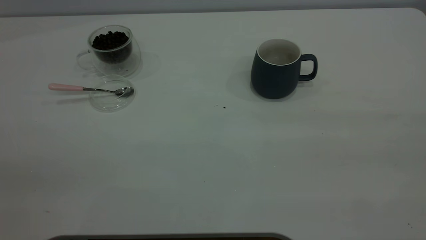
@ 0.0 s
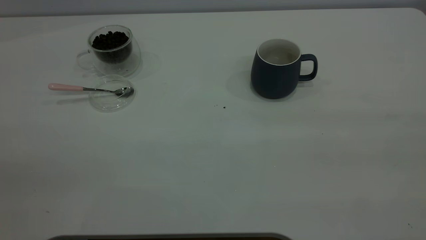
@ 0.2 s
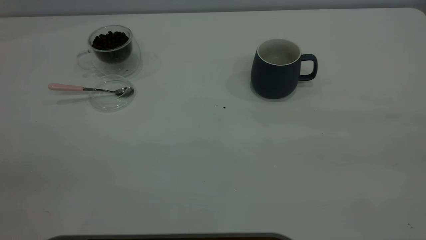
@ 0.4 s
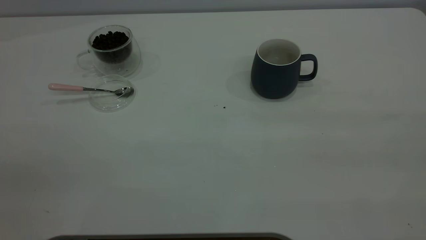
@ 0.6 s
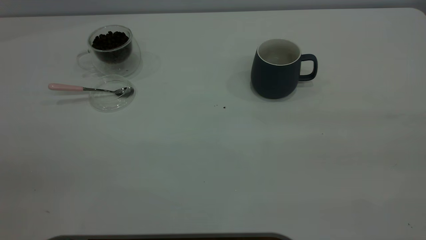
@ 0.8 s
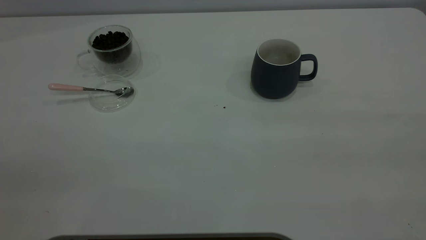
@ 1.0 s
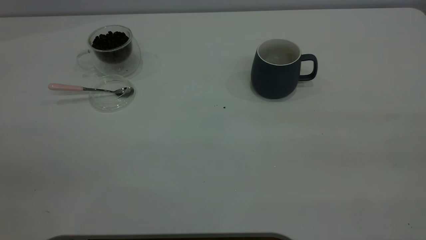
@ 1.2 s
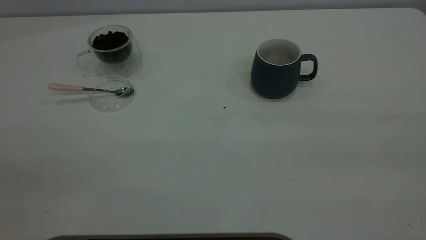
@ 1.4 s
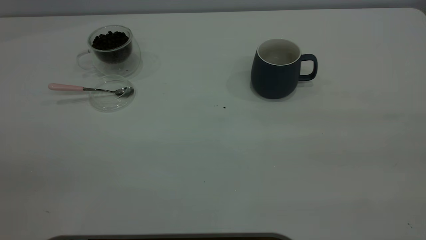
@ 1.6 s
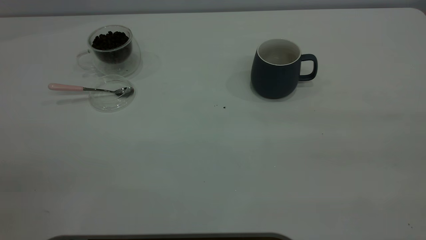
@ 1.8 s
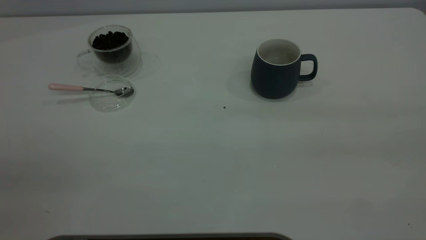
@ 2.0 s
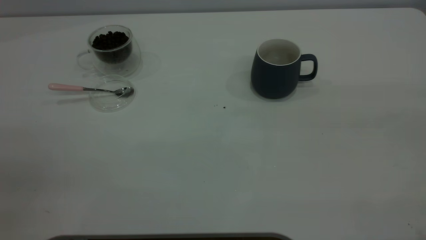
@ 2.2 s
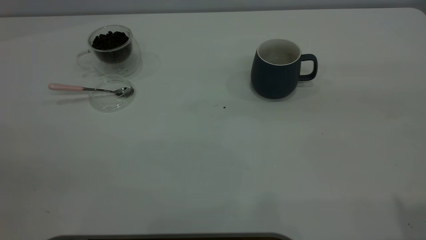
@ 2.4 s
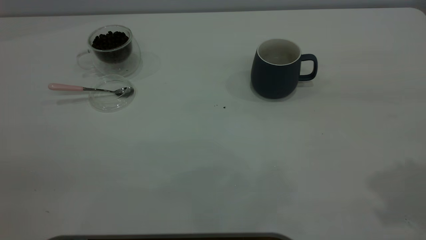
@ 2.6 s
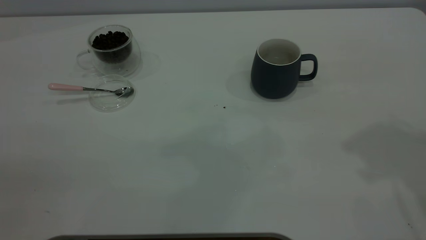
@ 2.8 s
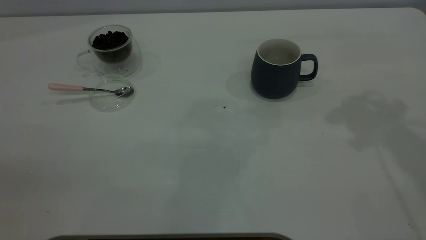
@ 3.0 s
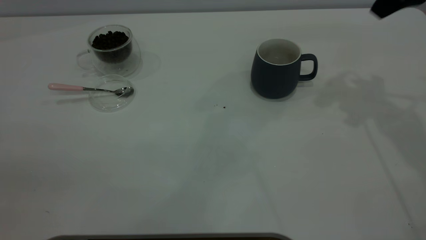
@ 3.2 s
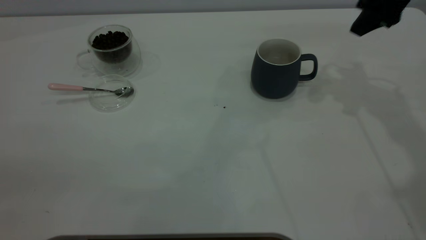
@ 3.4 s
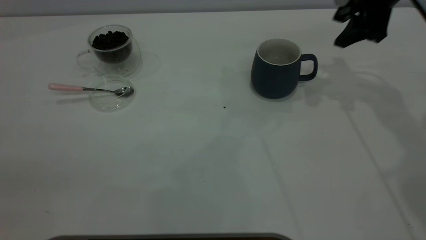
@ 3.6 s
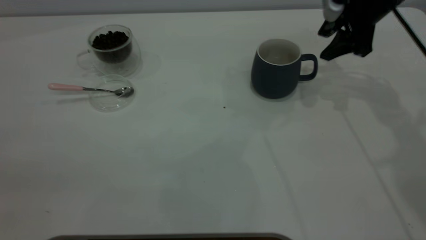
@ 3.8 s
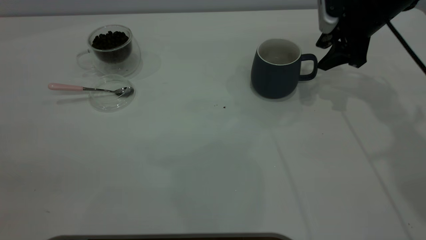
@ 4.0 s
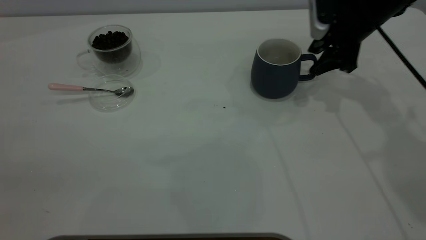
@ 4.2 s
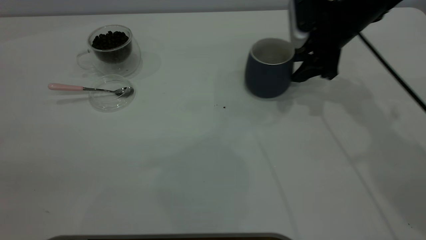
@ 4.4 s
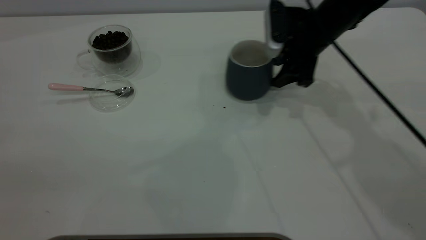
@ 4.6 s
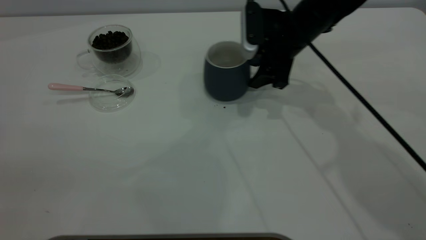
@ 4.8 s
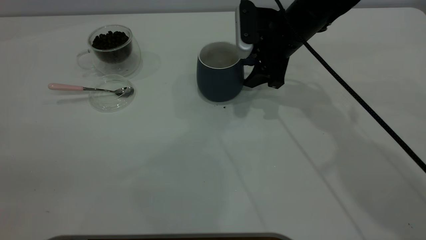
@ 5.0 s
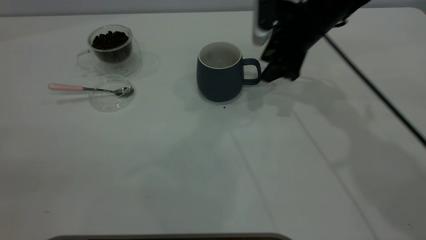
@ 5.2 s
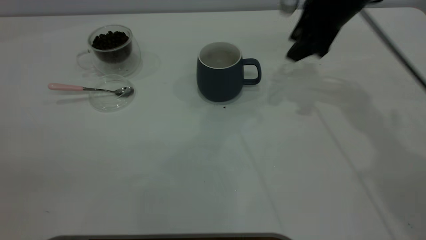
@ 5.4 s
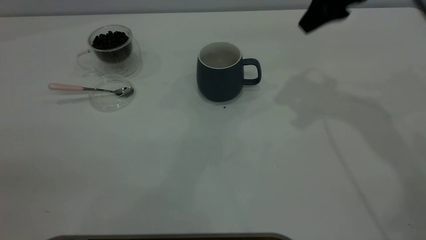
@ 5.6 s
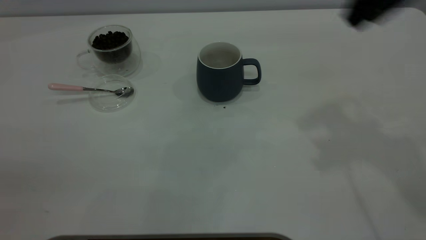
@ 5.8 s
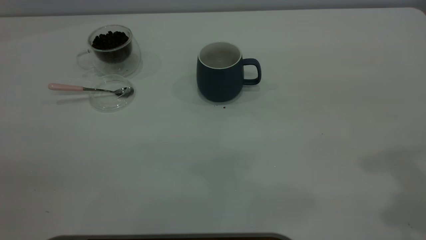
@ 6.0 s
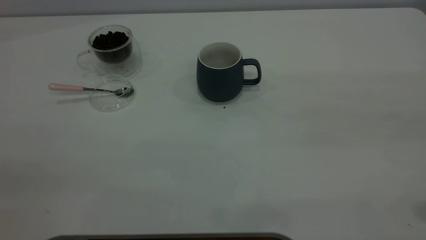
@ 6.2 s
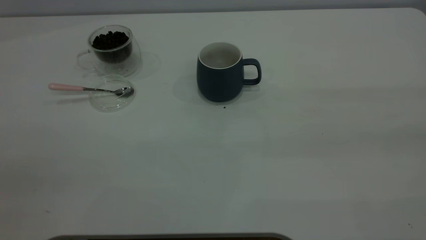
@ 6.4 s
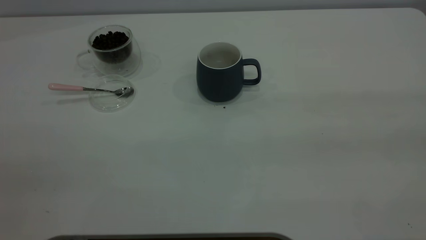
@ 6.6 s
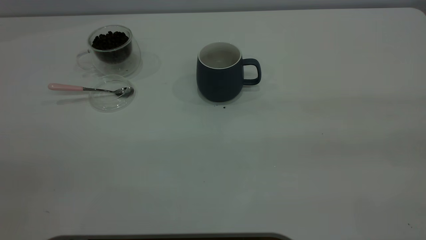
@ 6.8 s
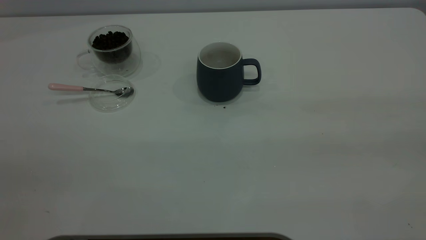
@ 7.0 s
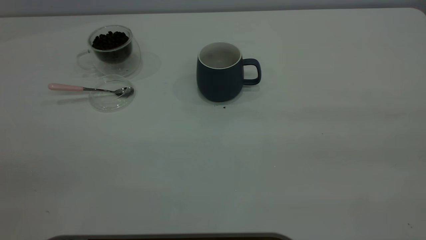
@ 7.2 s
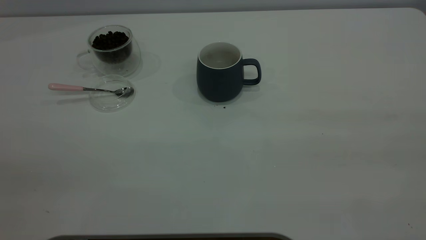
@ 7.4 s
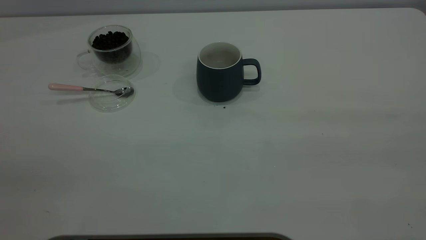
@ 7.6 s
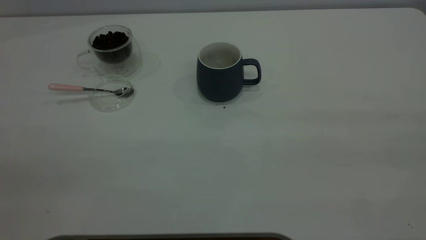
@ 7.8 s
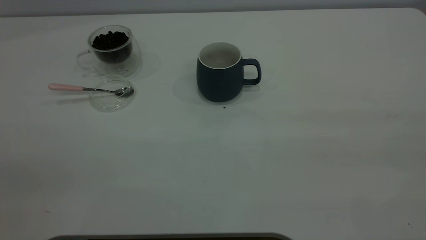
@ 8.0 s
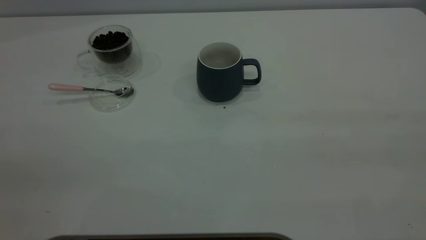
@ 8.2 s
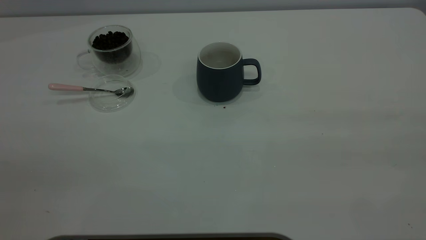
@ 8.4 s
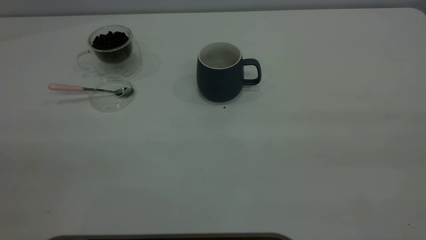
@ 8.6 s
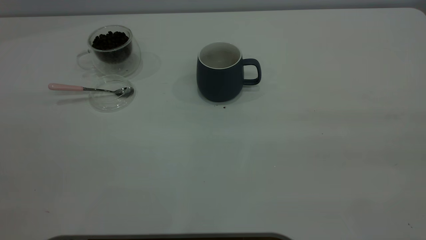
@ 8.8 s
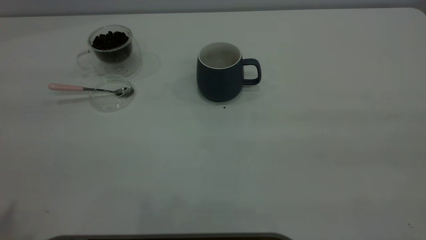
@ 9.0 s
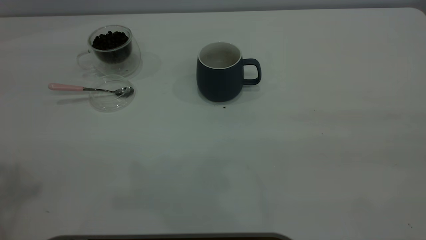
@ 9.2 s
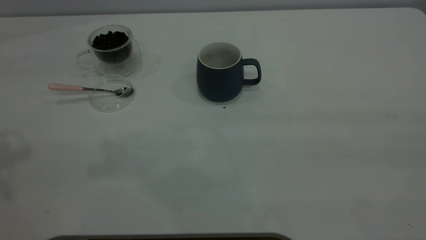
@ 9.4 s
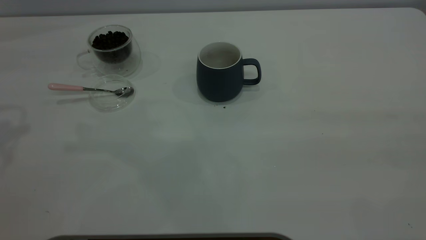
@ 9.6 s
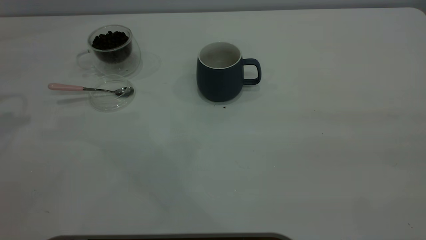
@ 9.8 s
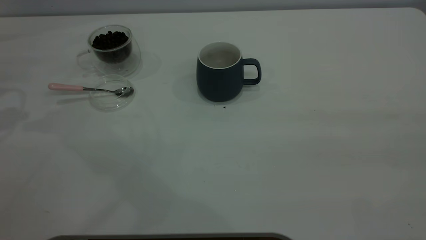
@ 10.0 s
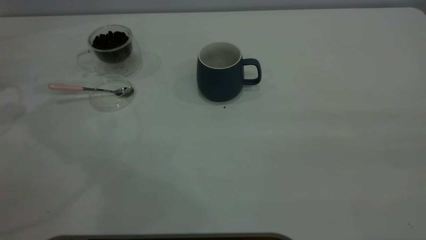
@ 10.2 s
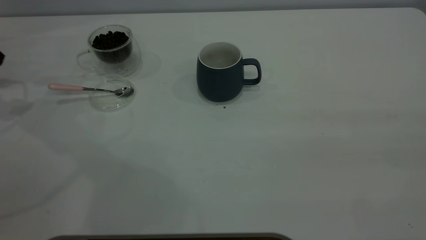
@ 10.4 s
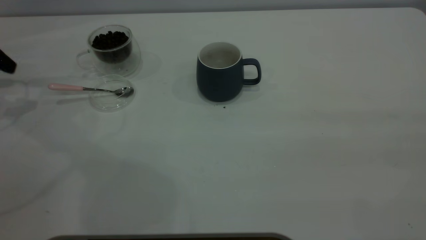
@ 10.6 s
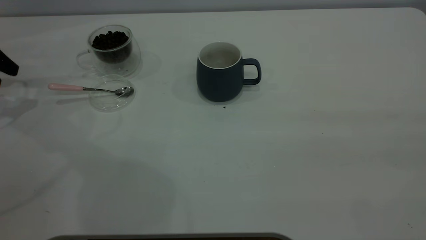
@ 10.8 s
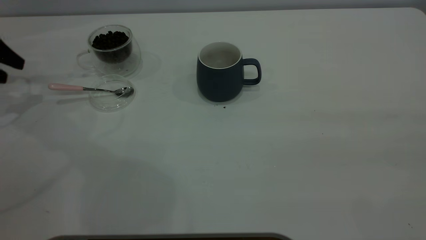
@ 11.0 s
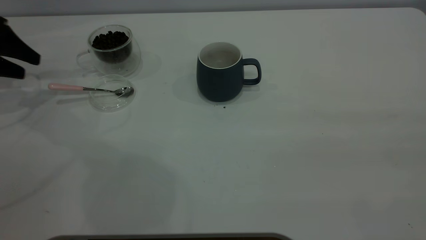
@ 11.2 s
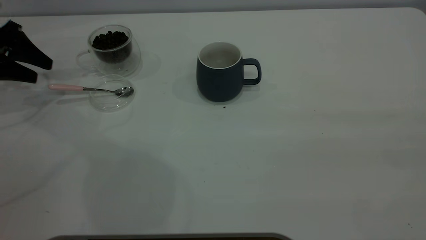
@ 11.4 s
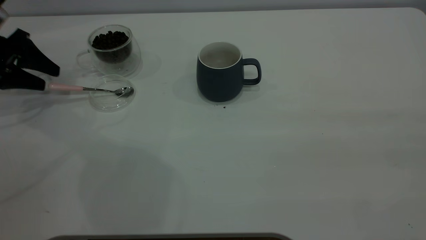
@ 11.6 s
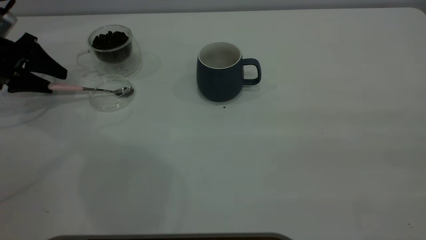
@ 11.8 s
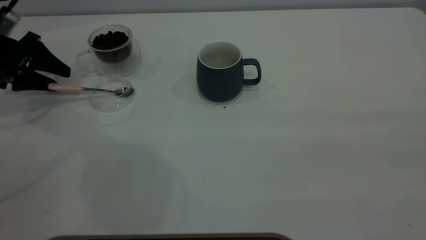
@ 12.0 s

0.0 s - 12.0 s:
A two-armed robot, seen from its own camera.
Task of the whole recording: the right gripper place the grey cup in the center of the table, the left gripper take the pink spoon from the cup lid and scoop out the coffee beans from the coffee cup and put them into the grey cup, the left gripper put the spoon back into the cup lid.
Step, 0.0 s - 5.2 s: Move the cup to the center of view.
0.0 s - 1.6 s: Neither gripper changes place.
3.0 s - 4.4 s: The right gripper heads downward, forward and to the left, covering roughly 25 cm.
4.4 s - 6.0 s: The right gripper goes some 35 cm backward and upward, and closes.
10.4 s - 12.0 s: The left gripper moves downward and to the right, about 10 cm.

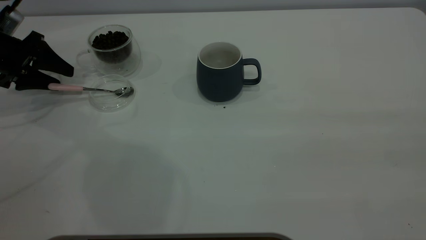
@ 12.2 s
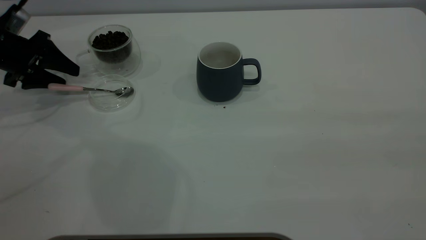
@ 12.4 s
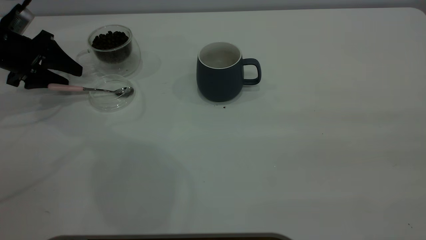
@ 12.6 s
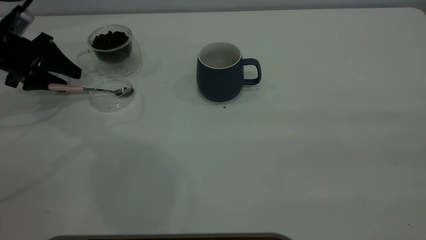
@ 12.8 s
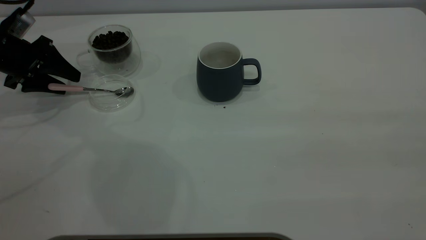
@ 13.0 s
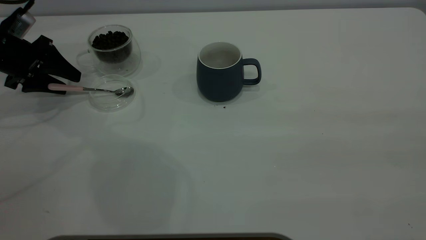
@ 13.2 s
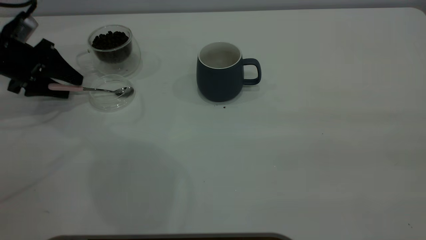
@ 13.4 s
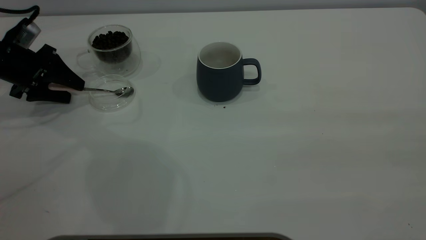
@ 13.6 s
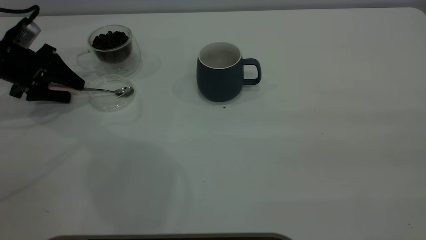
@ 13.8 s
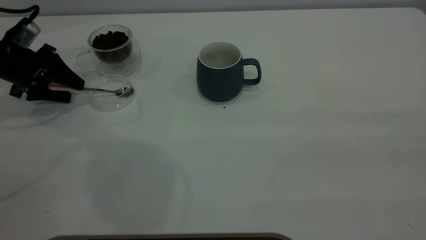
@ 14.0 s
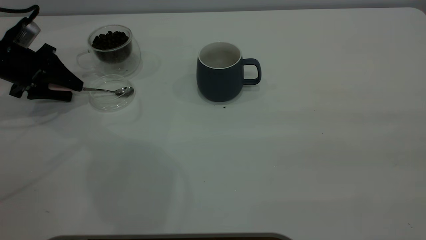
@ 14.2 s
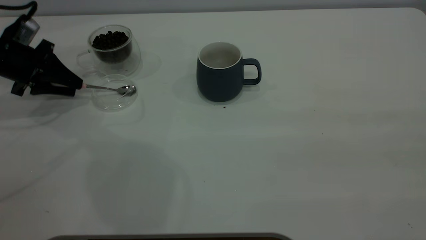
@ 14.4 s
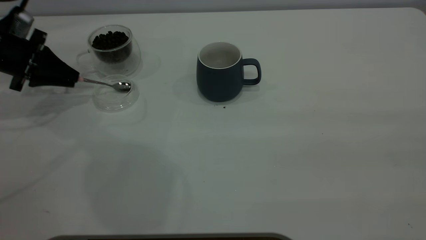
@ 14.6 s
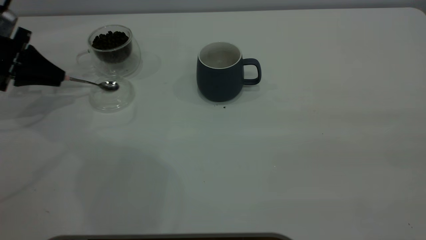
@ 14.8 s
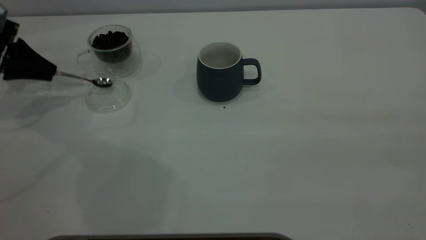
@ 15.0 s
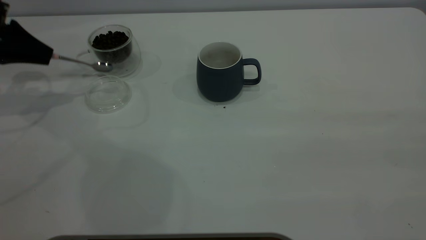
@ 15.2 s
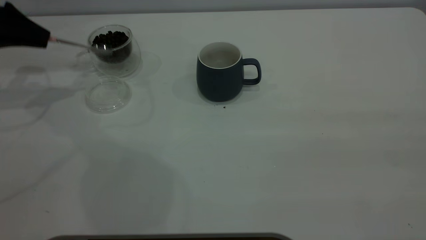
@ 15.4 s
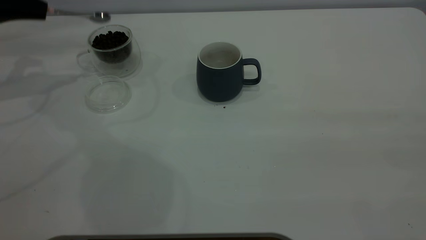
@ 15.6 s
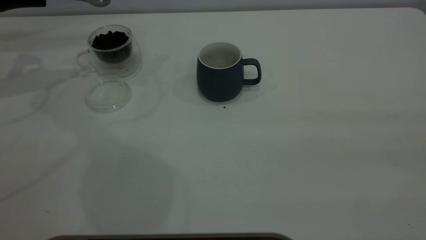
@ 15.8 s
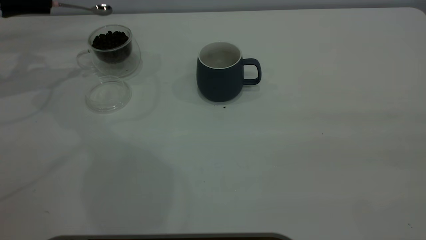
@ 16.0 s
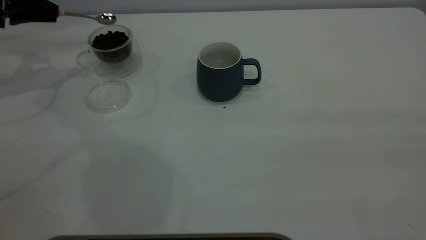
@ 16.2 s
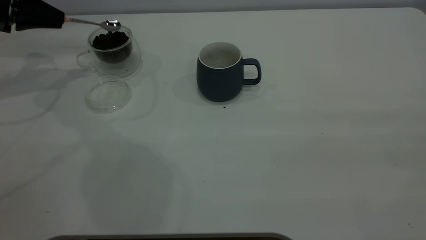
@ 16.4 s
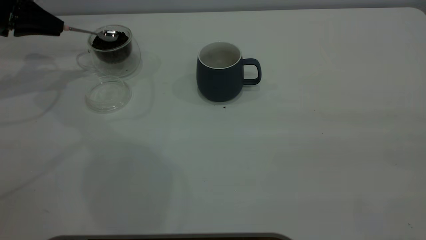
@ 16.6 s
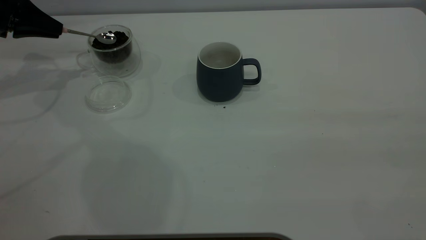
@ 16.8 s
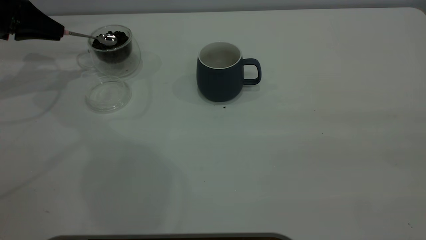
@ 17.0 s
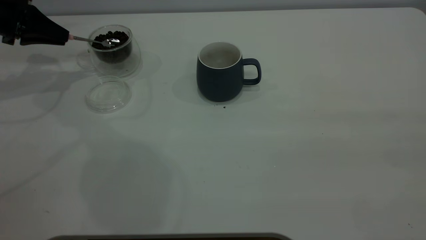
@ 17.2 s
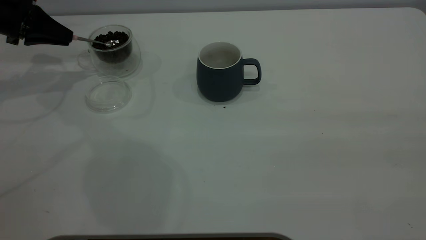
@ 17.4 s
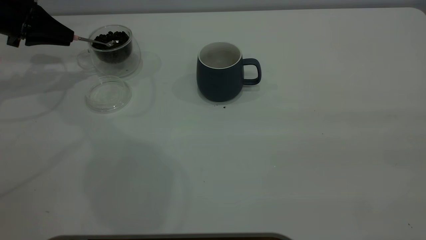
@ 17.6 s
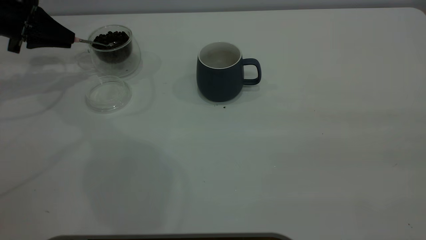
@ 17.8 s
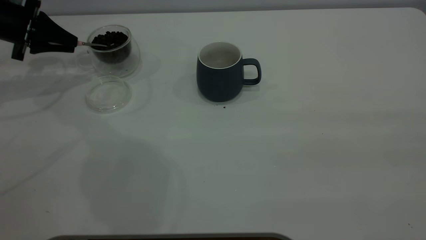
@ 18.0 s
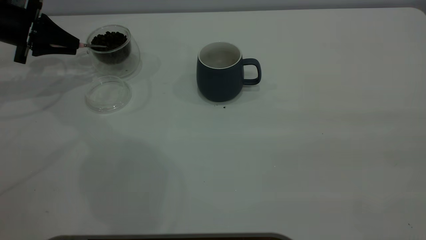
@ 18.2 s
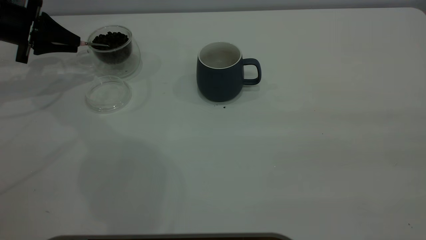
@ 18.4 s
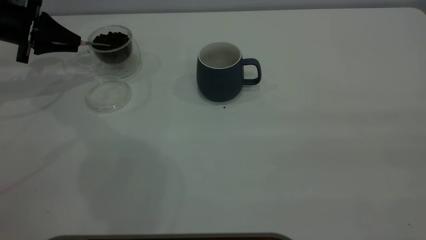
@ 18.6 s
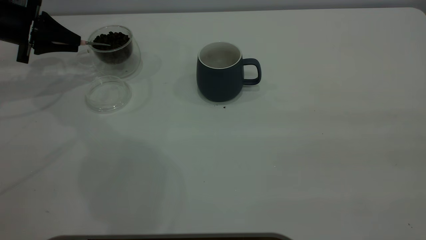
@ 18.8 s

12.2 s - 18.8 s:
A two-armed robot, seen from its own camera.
Task of the whole recording: the right gripper place the grey cup in the center of the table, the left gripper take the pink spoon from the cup lid and scoop out the coffee beans from the coffee cup and put them into the grey cup, the left gripper put the spoon back into the cup lid.
Step, 12.2 s - 15.2 s: Pick up the spoon.
12.2 s - 13.8 s: The grippers make only small movements.
13.8 s - 15.4 s: The left gripper shifts roughly 10 cm upward, and closes.
15.4 s - 17.2 s: The grippers stay close to where they were, moving slightly.
